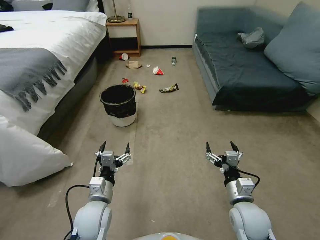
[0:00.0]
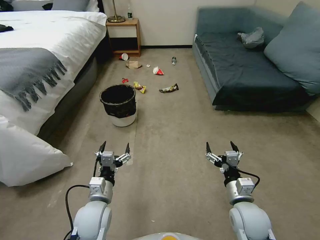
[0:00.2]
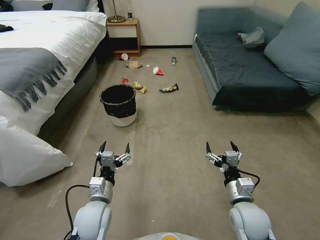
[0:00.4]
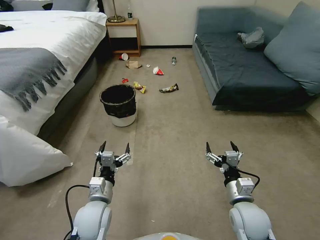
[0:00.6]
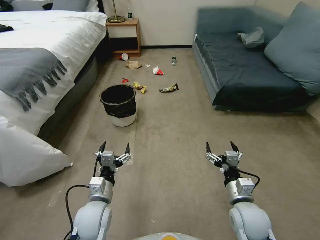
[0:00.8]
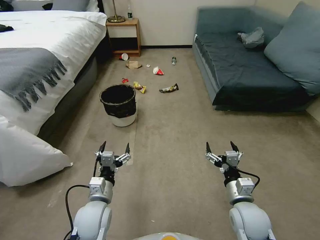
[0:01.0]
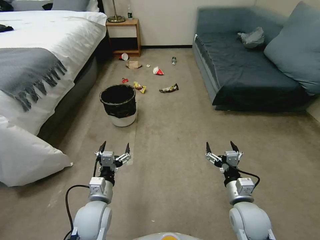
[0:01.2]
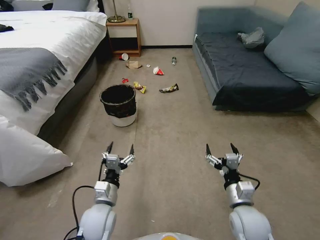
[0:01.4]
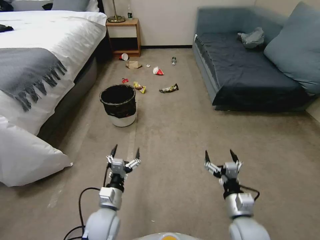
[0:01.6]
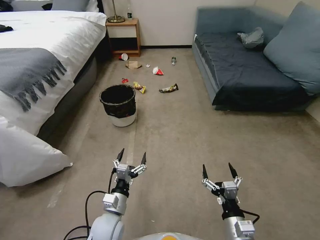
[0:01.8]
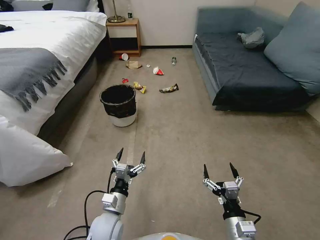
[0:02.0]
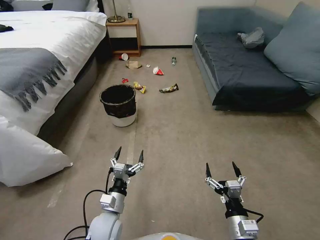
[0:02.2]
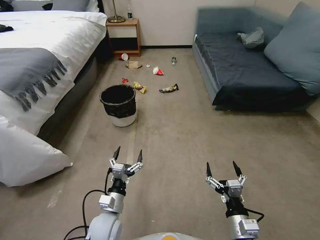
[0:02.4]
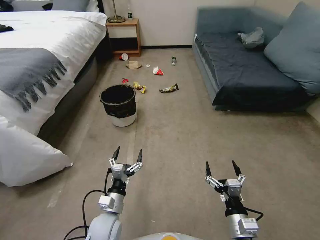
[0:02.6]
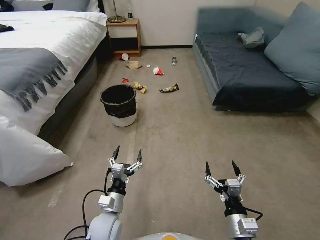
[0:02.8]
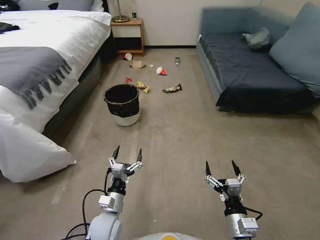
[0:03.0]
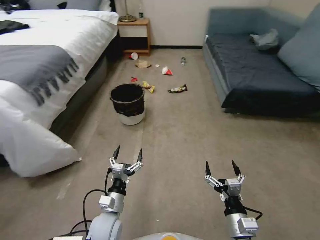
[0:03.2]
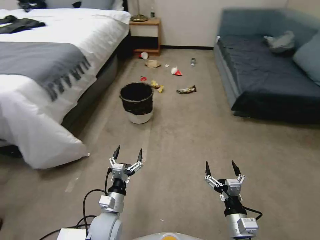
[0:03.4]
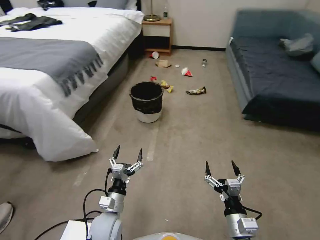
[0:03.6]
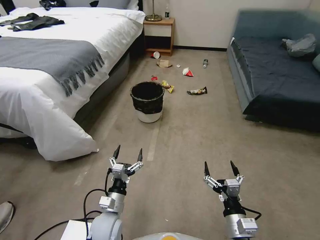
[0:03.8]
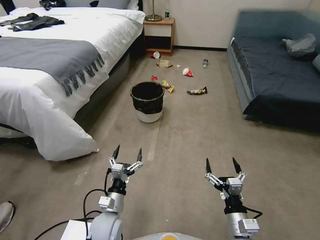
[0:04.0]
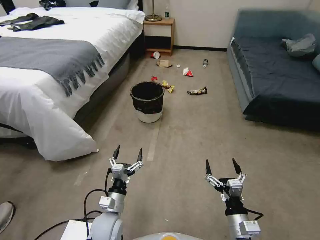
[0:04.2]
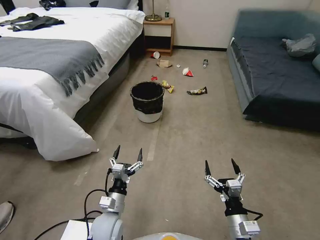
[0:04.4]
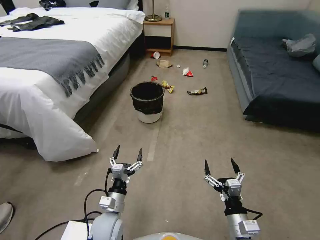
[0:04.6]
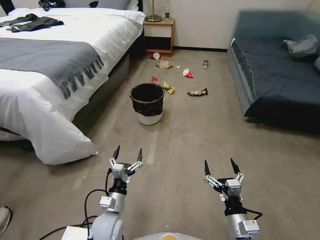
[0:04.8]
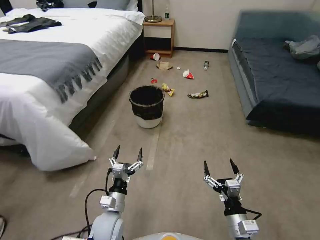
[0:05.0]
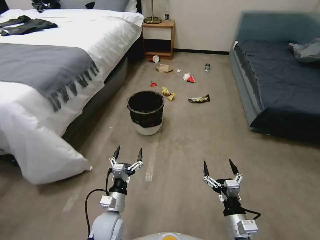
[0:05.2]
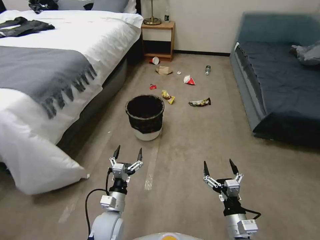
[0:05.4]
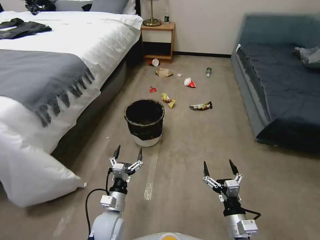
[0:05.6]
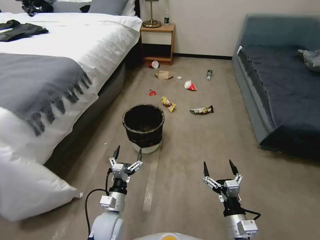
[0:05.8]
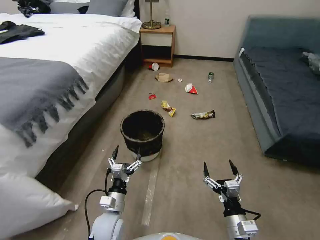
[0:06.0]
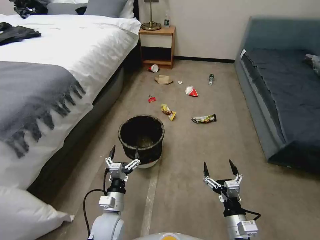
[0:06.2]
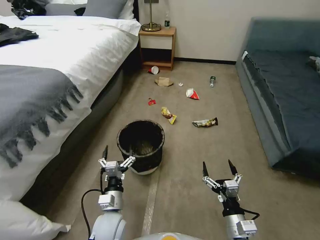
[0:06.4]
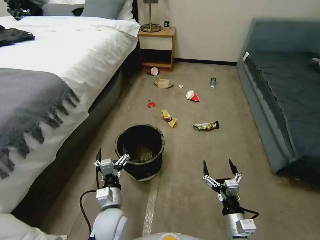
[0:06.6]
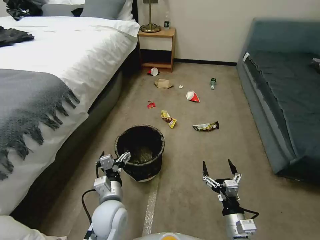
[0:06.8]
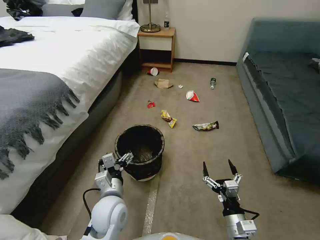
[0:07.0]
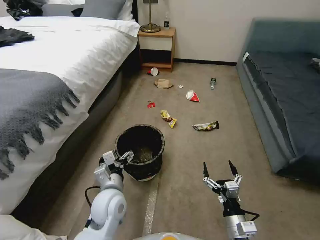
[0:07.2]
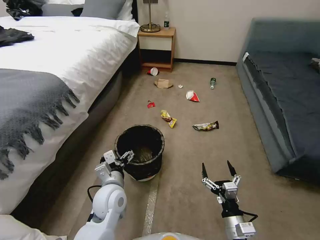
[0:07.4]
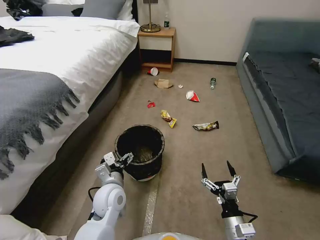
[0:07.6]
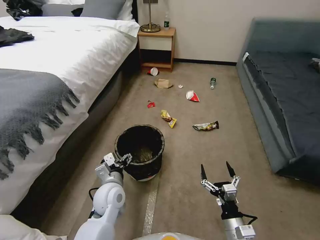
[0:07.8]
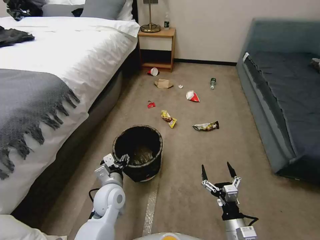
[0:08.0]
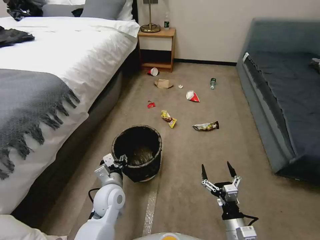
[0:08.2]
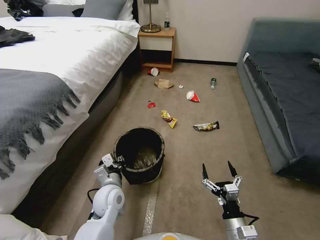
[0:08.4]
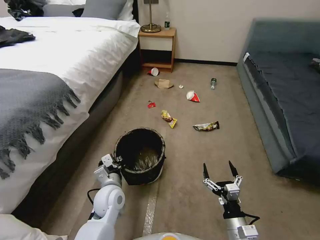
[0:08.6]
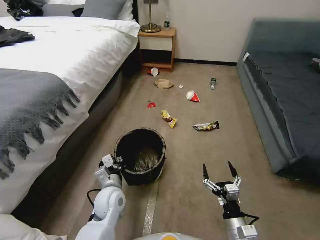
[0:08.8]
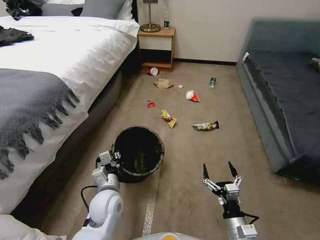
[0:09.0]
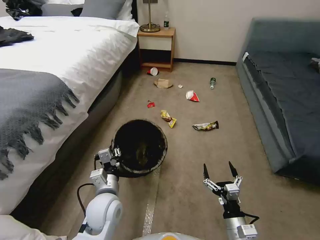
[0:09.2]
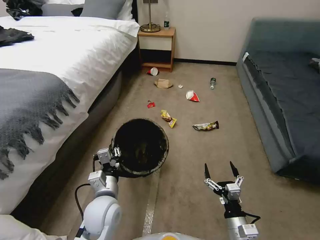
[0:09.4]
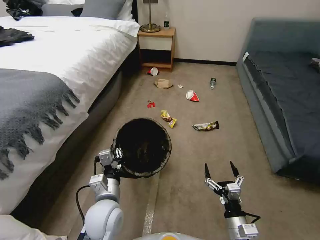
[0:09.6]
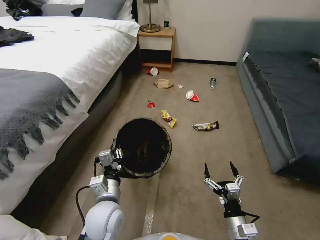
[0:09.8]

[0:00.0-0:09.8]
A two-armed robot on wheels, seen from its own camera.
Task of the whole recording: Pick up the trash can from the floor.
0:01.4 to 0:02.8: The right gripper heads backward, covering roughly 10 cm. The left gripper heads downward, covering roughly 5 cm.
0:05.6 to 0:07.0: The left gripper moves upward, about 10 cm.
0:07.0 to 0:08.4: The left gripper shifts by approximately 5 cm, and closes up.
0:08.4 to 0:09.8: The left gripper heads backward and upward, covering about 10 cm.
